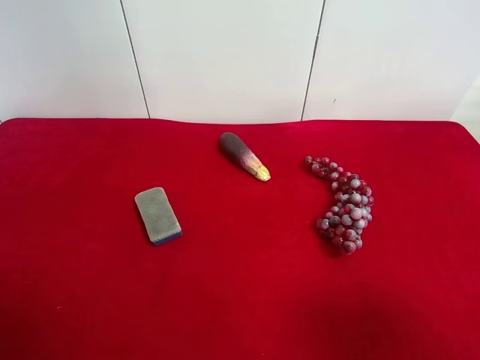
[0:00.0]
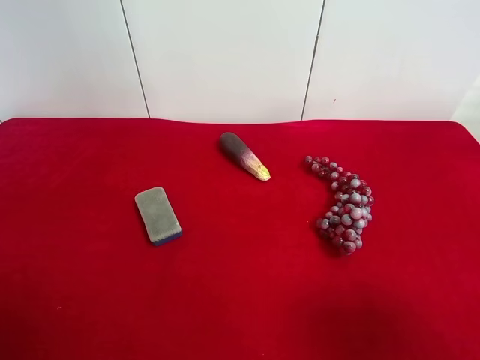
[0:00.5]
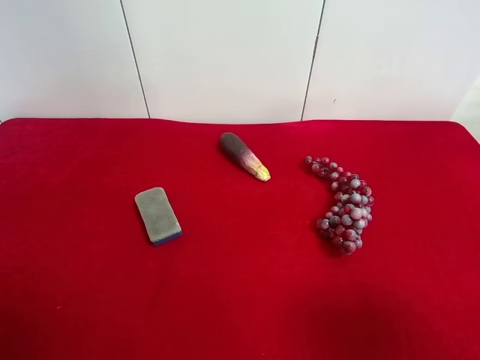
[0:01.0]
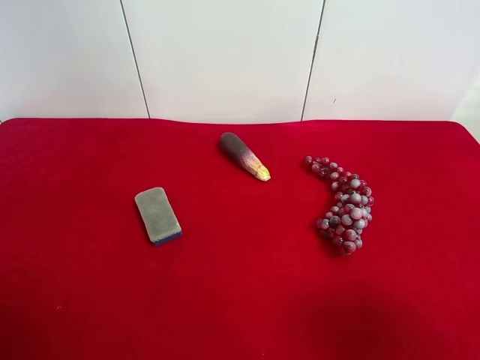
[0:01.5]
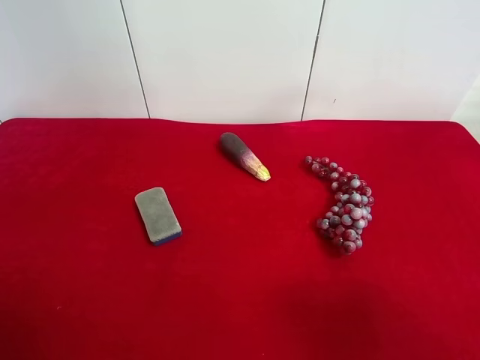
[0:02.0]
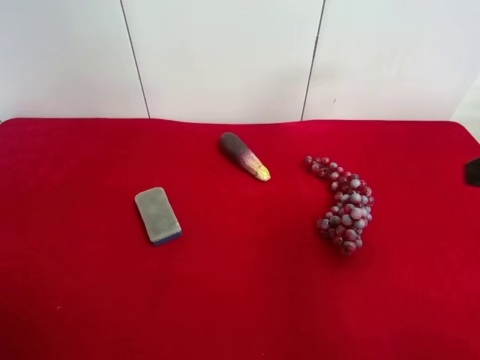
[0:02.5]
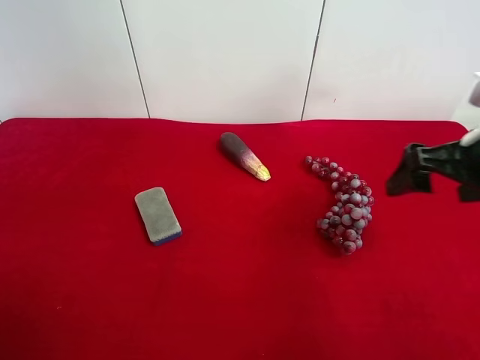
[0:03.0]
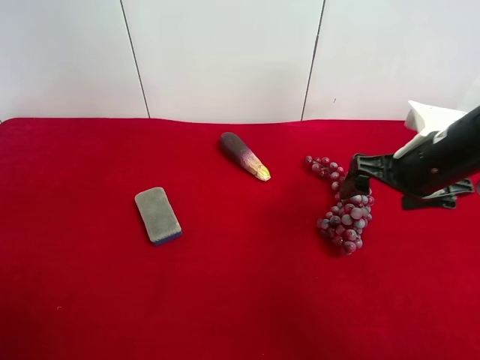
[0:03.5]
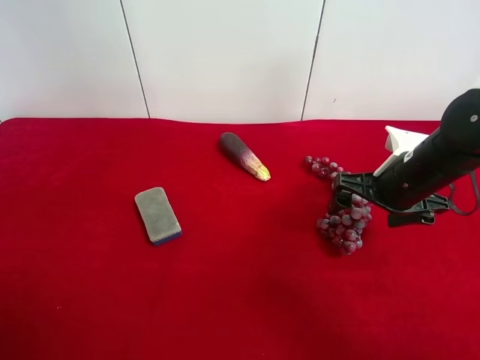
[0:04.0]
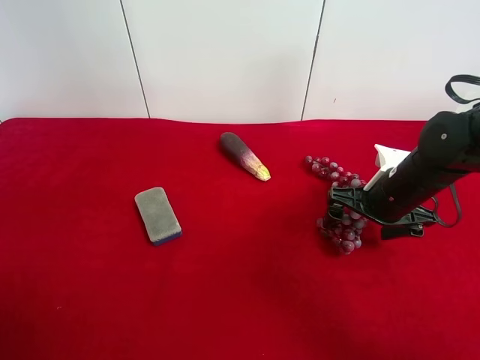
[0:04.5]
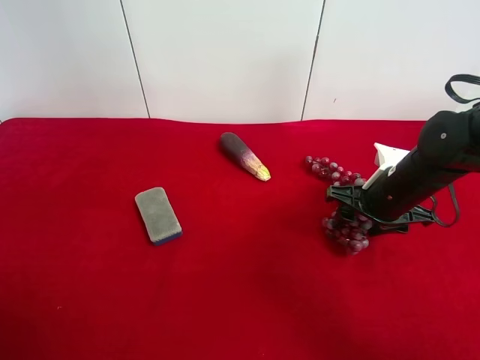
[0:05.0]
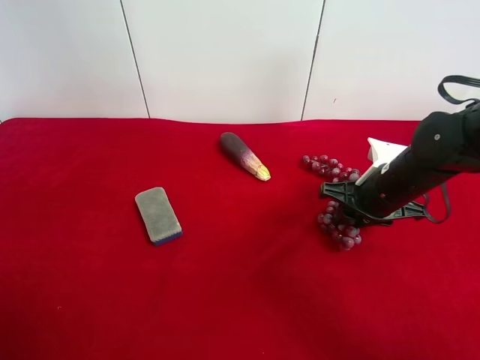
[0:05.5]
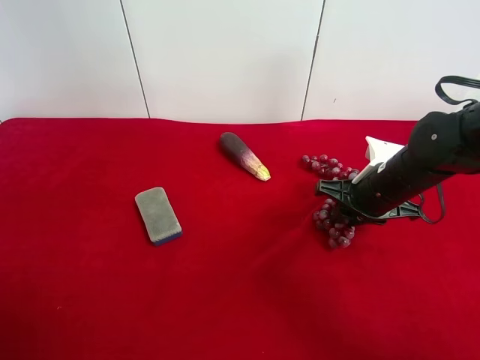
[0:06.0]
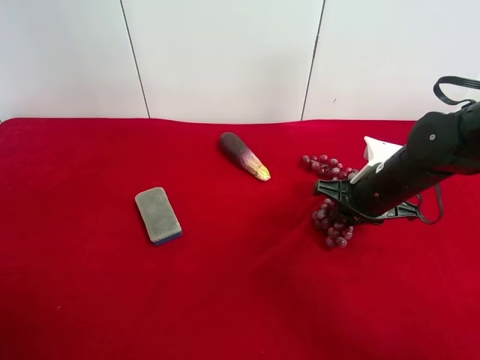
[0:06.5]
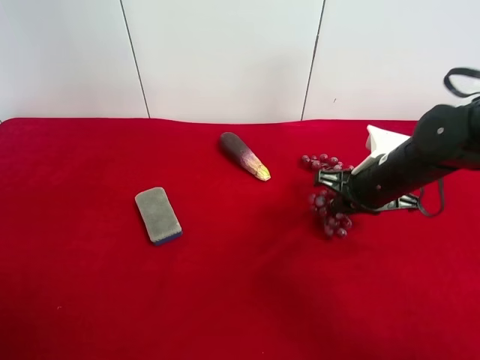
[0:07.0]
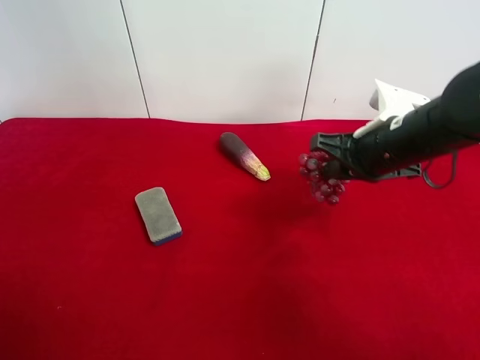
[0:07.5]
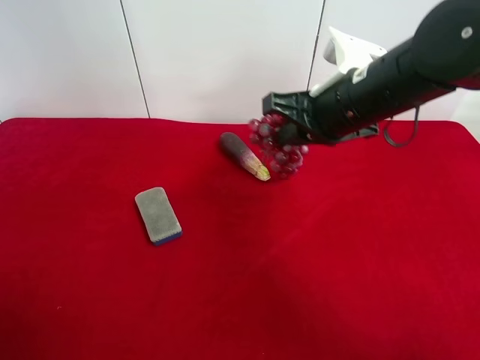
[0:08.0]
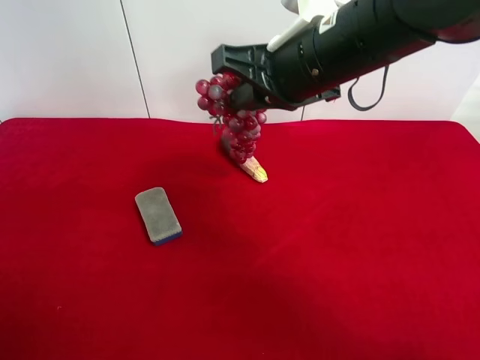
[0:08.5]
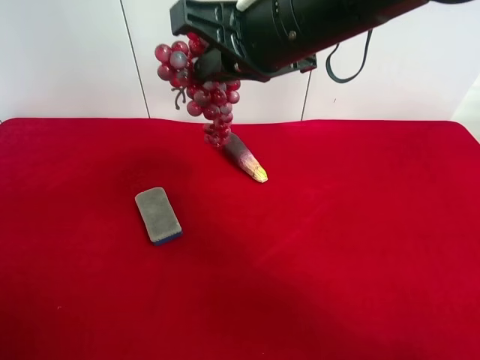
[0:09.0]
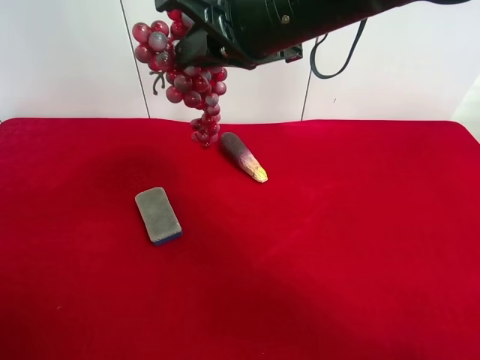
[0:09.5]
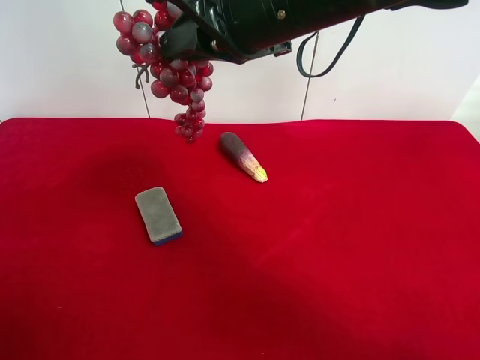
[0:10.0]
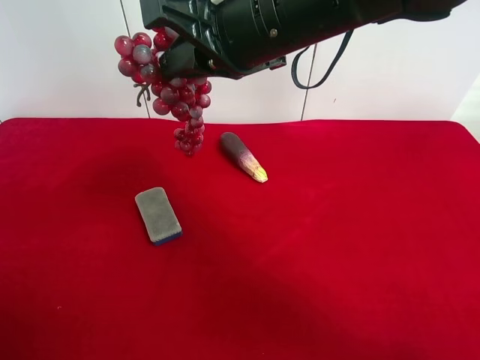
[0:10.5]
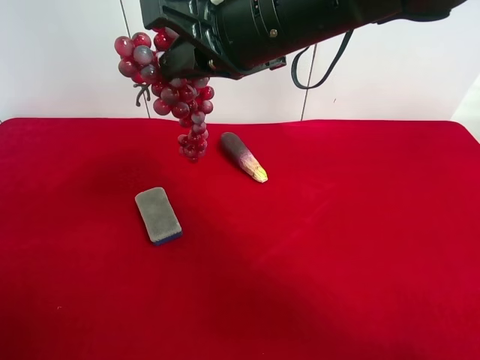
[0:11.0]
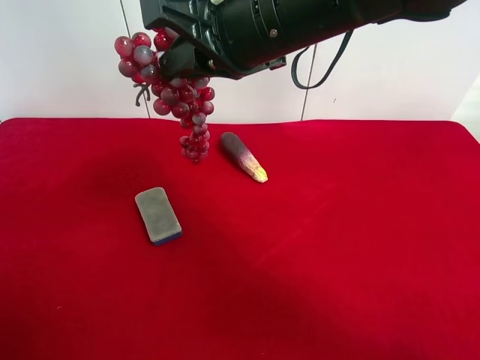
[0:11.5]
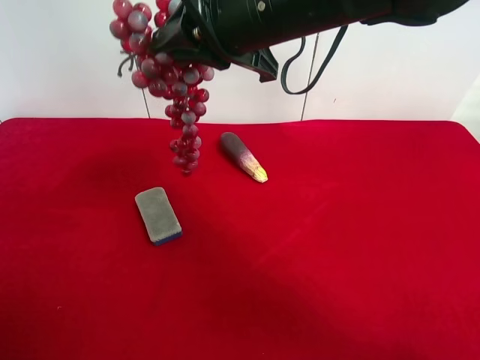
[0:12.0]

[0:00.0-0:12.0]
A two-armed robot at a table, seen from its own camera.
Task of the whole recording: use the right gripper to pick up the item and transfer it from the right gripper to the left gripper.
Step, 0.0 to 5.0 s: Use the right gripper to grab the grape on the right side of the table.
2.0 to 4.0 s: The right gripper shifts about 30 cm forward and downward.
4.0 to 6.0 s: The right gripper closes up.
6.0 to 8.0 s: The right gripper heads upward and to the left, covering approximately 15 cm.
8.0 to 10.0 s: The right gripper shifts roughly 10 cm upward and to the left.

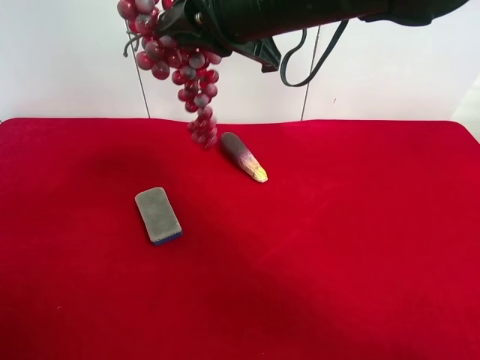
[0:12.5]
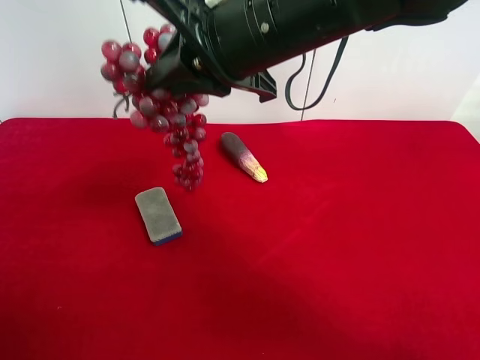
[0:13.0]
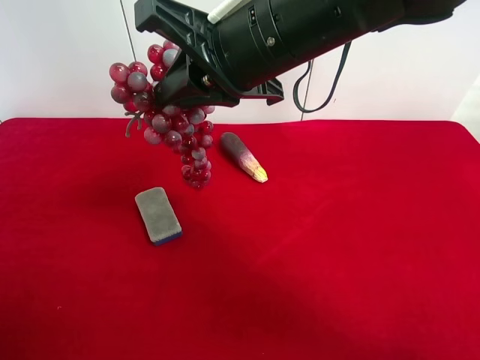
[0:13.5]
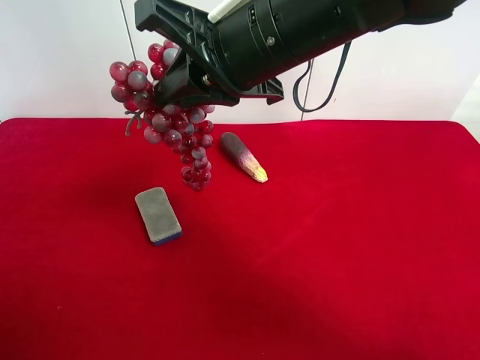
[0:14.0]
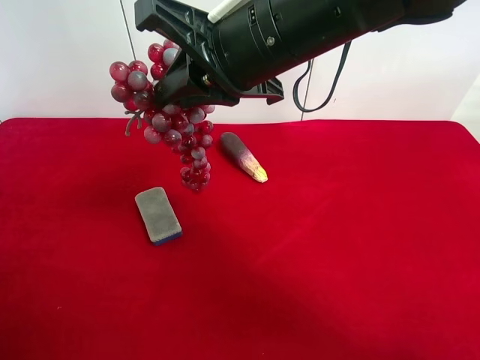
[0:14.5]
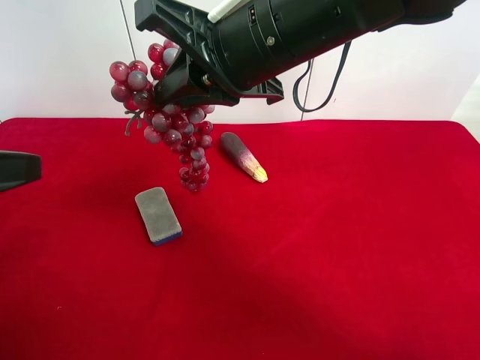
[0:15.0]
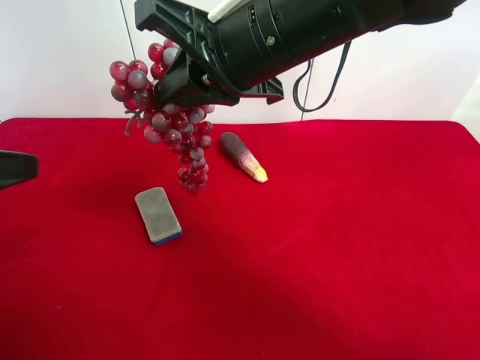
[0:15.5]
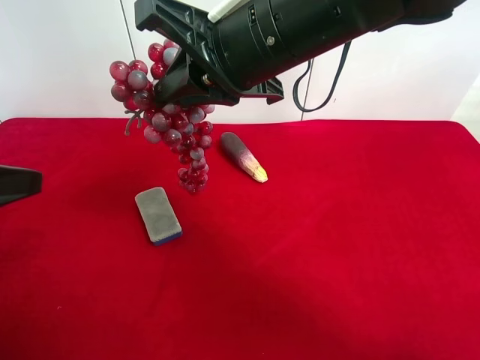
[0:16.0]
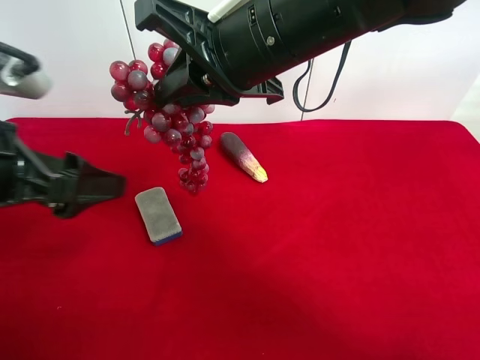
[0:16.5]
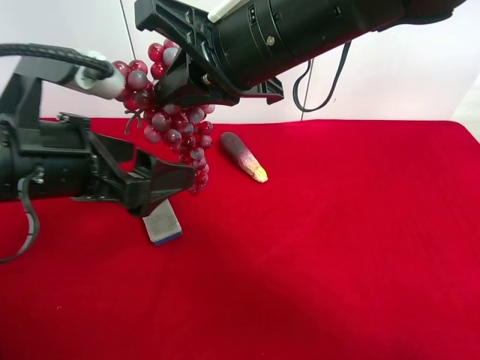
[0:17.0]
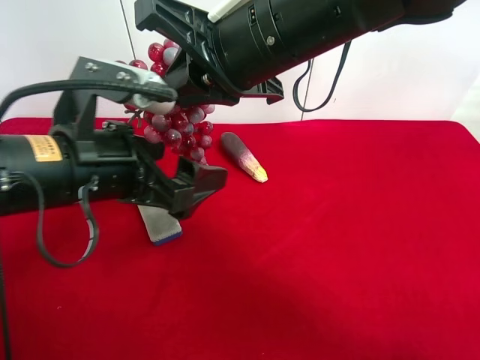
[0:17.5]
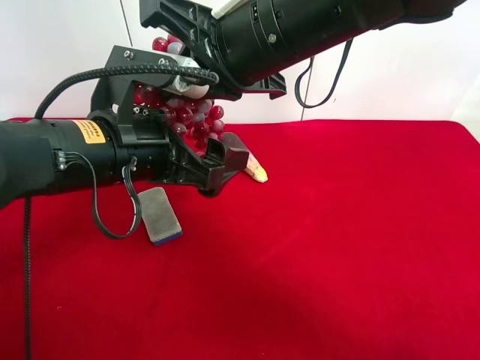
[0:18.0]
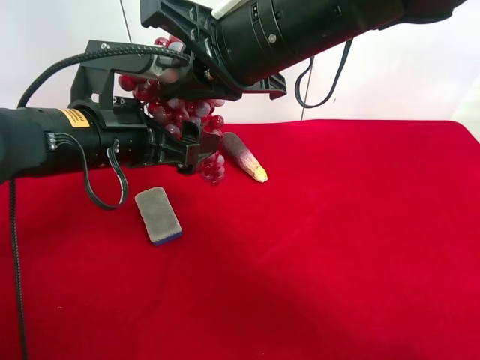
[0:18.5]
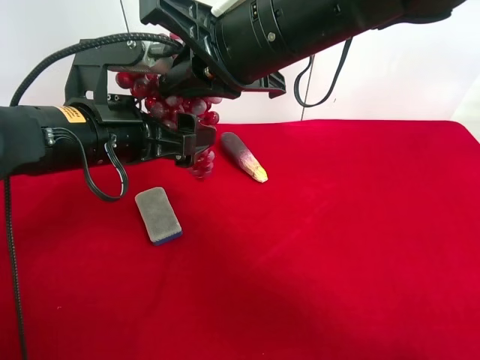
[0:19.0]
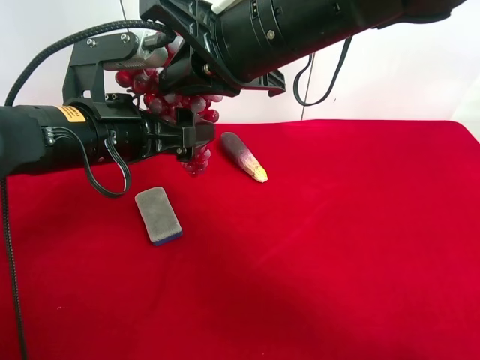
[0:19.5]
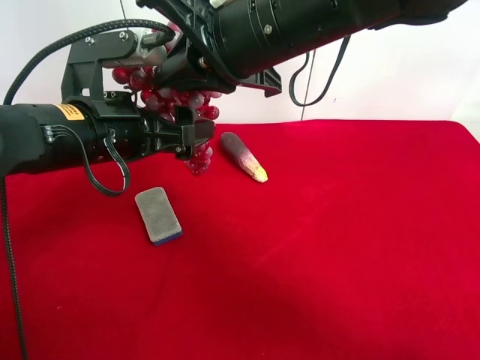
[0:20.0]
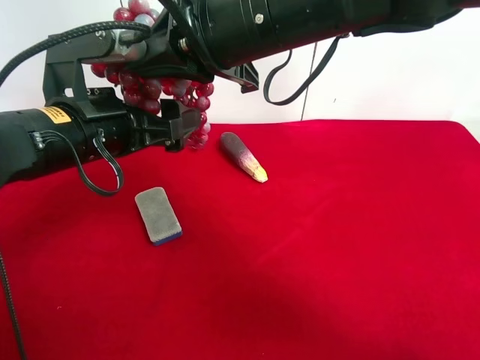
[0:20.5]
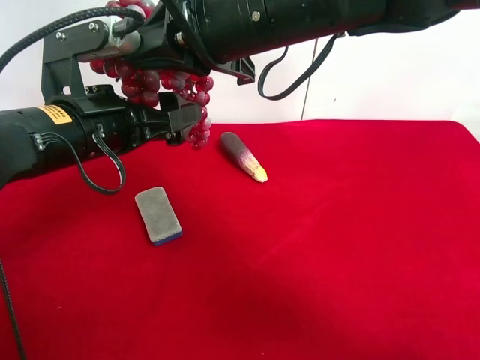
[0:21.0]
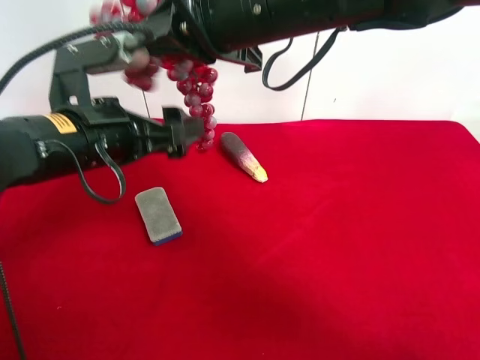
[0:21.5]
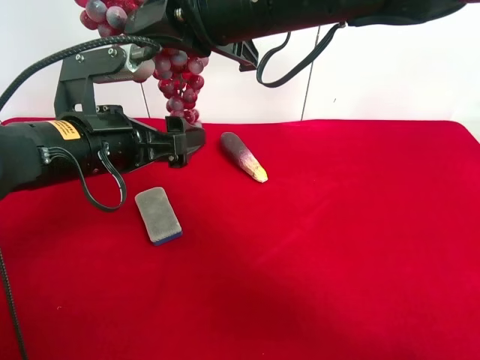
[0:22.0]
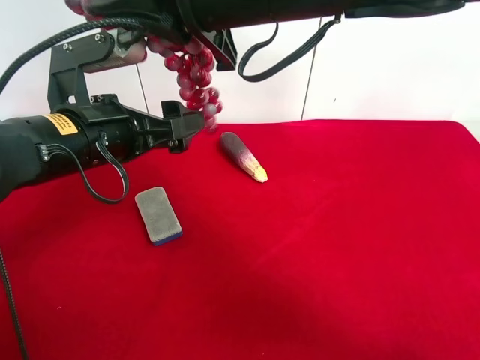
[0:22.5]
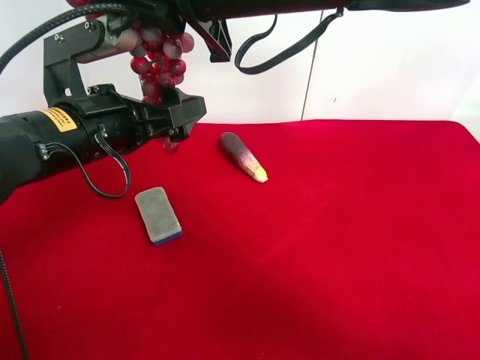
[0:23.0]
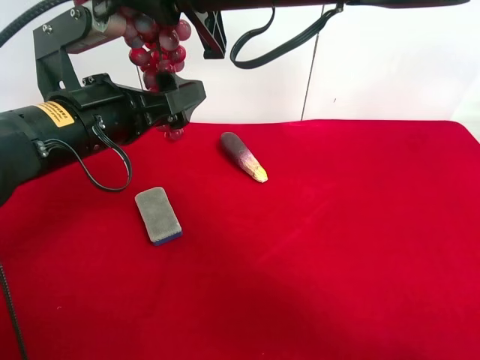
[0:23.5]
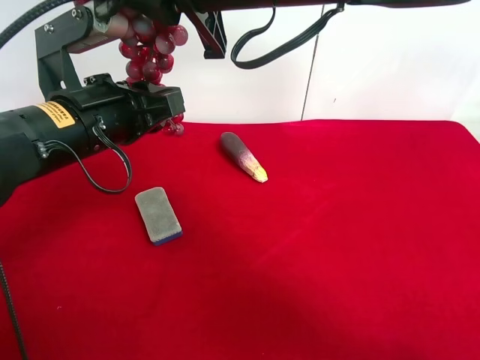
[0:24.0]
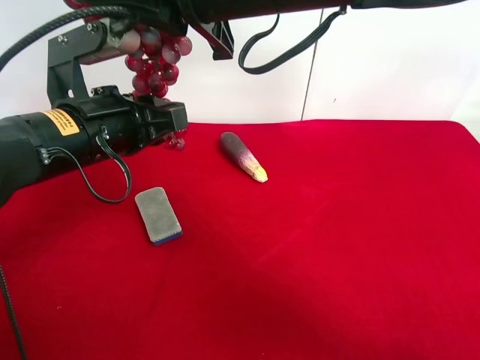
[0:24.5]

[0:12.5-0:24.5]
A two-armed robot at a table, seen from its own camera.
Task of the whole recording: use the right gripper to pick up the item and transfer it from the right gripper to the left gripper.
12.5 to 14.5 s: The left gripper moves forward, some 5 cm.
14.5 to 16.5 s: The left gripper heads forward and to the right, covering roughly 10 cm.
16.5 to 18.5 s: The left gripper goes about 10 cm to the right and forward.
18.5 to 20.5 s: The grippers move only a little.
20.5 to 22.5 s: The grippers stay close to where they were, moving slightly.
22.5 to 24.5 s: The left gripper closes its fingers.

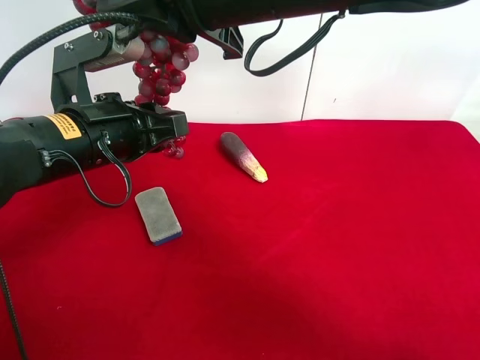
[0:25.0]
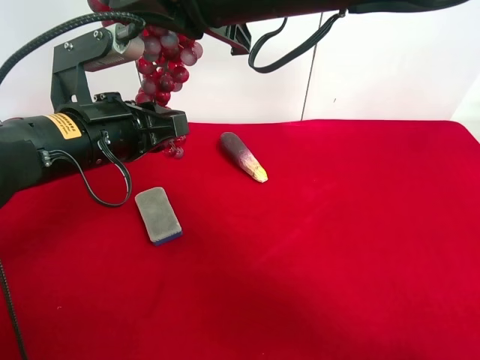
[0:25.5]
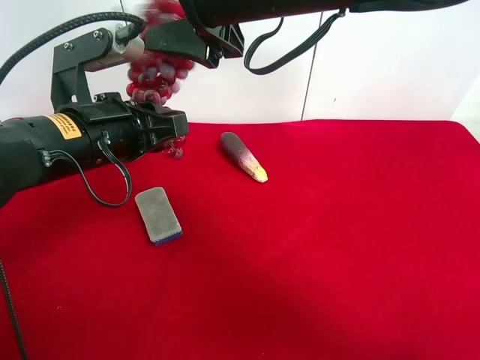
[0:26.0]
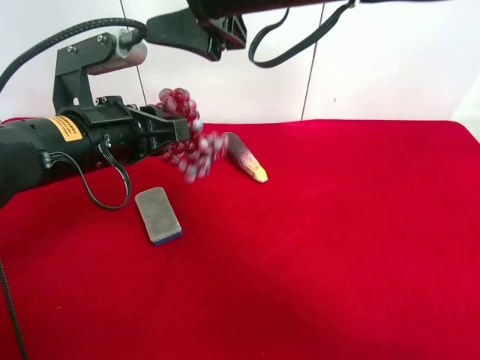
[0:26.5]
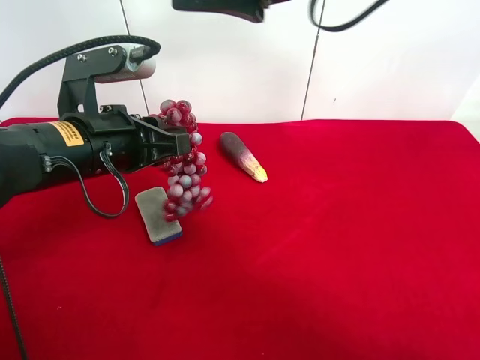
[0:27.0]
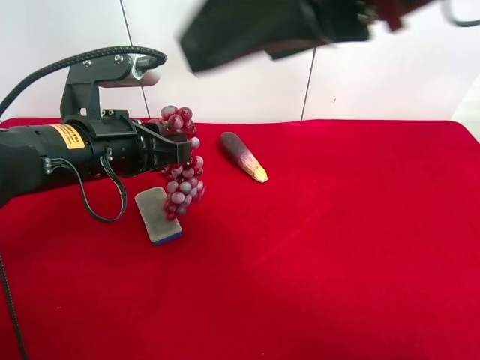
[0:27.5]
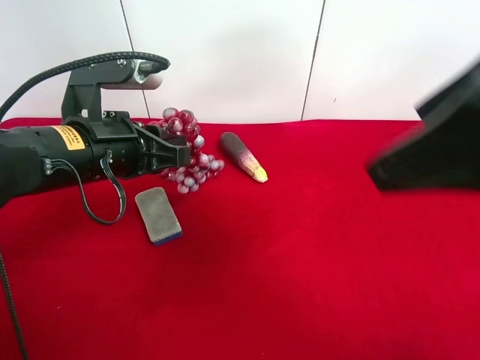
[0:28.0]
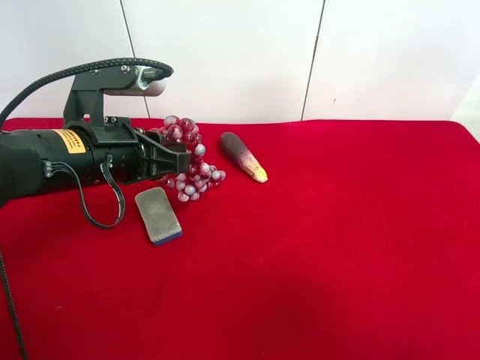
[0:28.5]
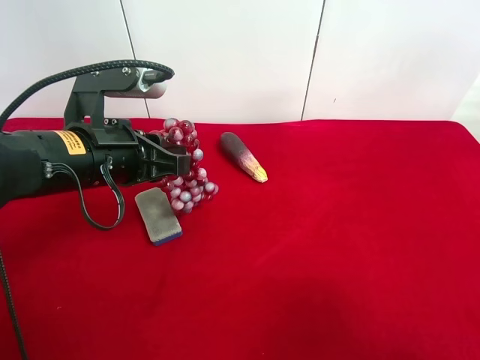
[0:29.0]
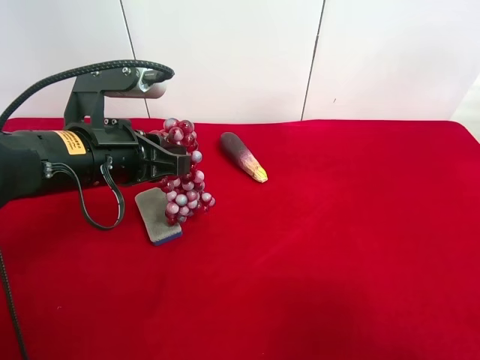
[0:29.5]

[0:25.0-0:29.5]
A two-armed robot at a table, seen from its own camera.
Task of the whole recording: use the right gripper to pick up the item and transfer it from the right gripper to the left gripper.
25.0 to 27.0 s: The right gripper moves some 5 cm, and opens up.
27.0 to 29.5 s: The right gripper travels to the right, backward and downward by some 30 cm.
